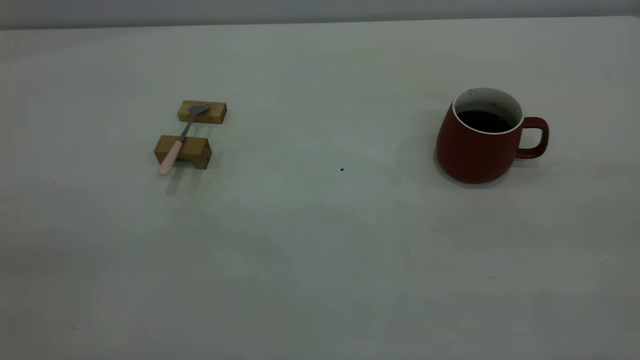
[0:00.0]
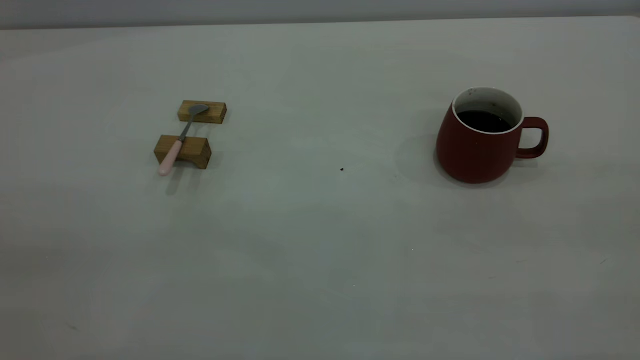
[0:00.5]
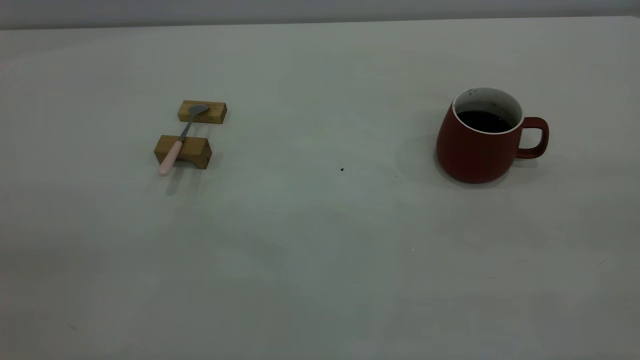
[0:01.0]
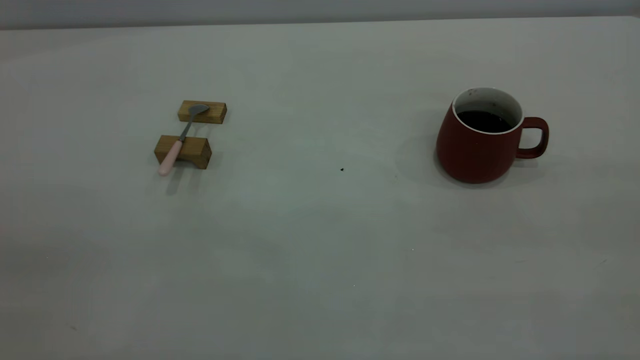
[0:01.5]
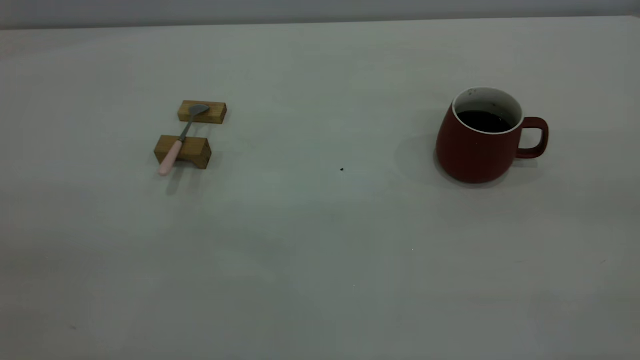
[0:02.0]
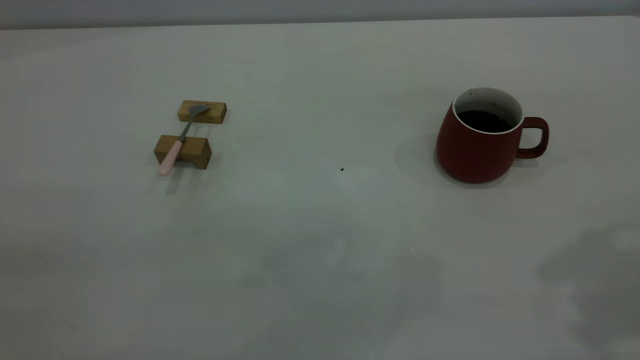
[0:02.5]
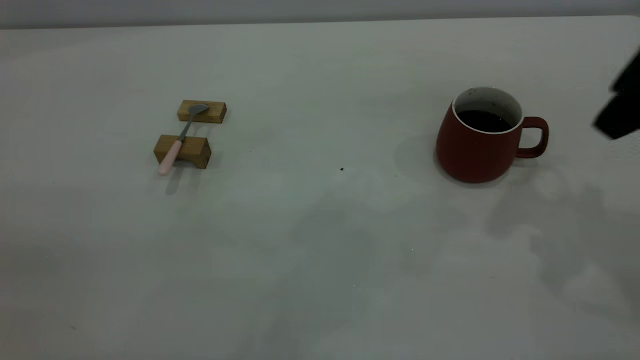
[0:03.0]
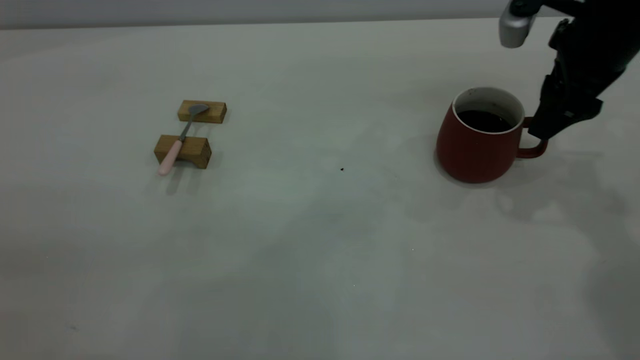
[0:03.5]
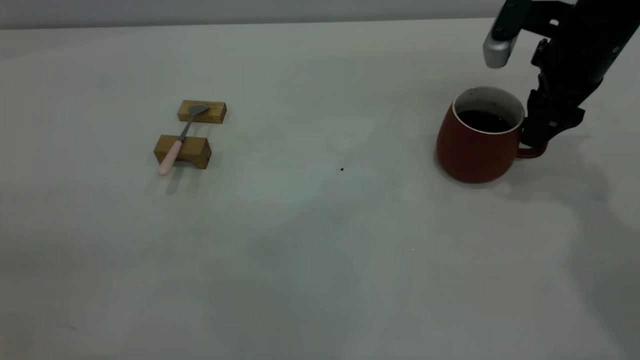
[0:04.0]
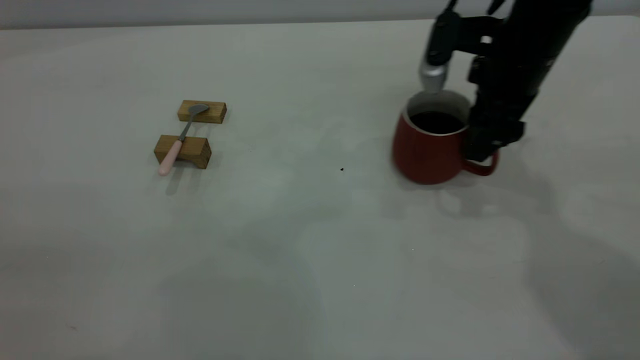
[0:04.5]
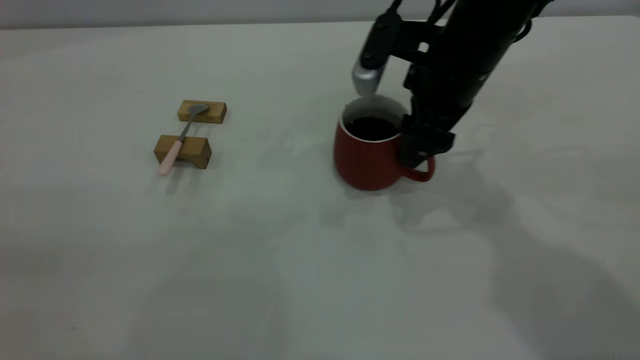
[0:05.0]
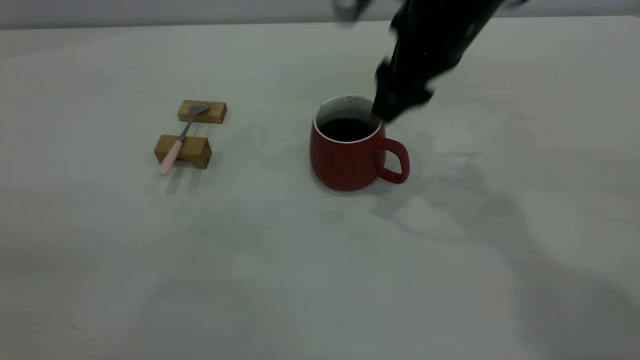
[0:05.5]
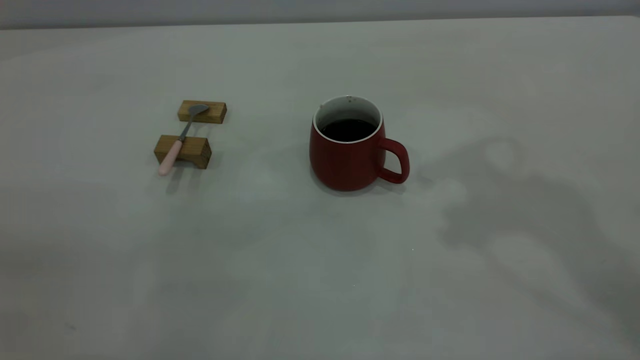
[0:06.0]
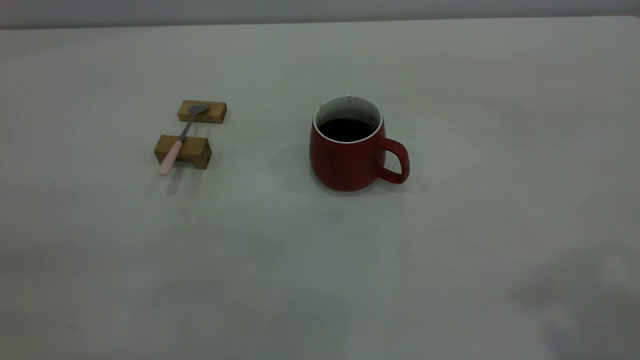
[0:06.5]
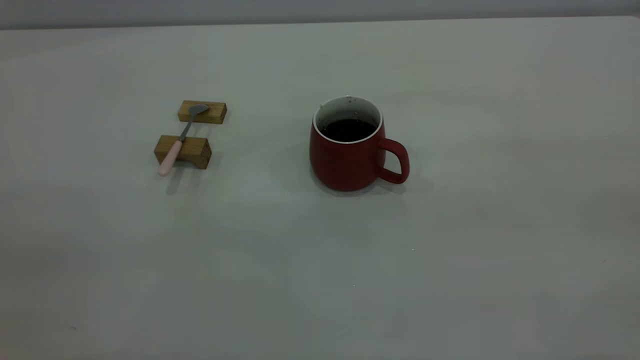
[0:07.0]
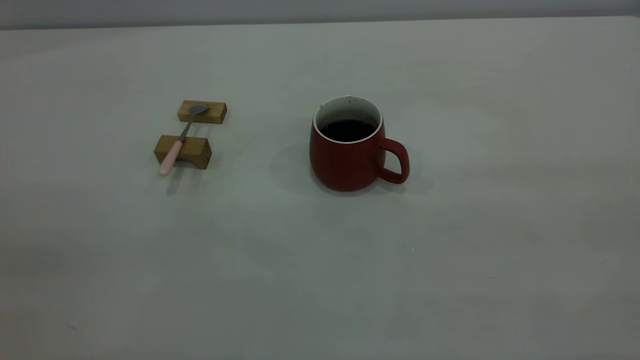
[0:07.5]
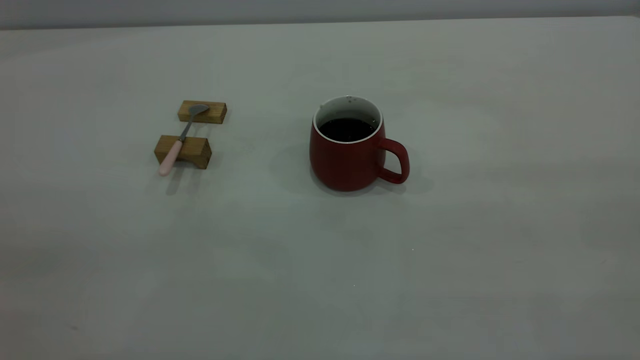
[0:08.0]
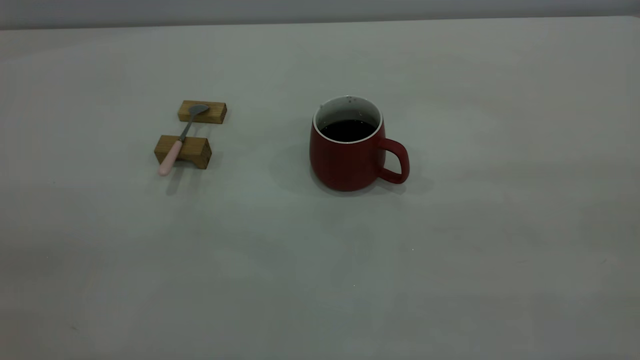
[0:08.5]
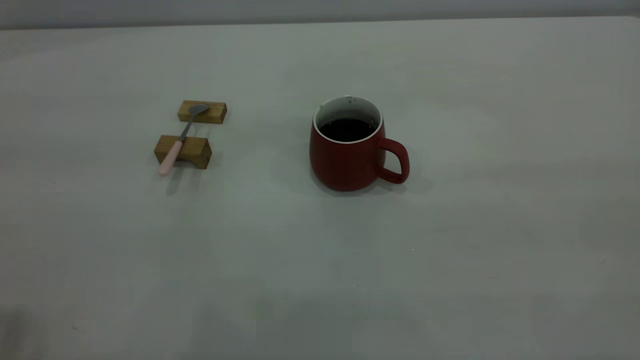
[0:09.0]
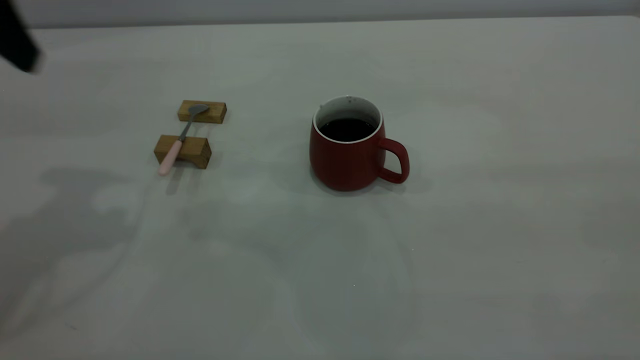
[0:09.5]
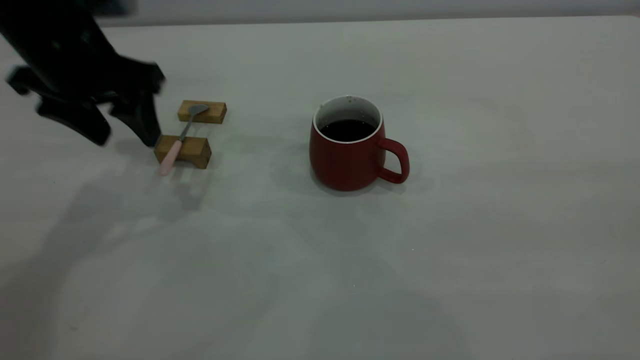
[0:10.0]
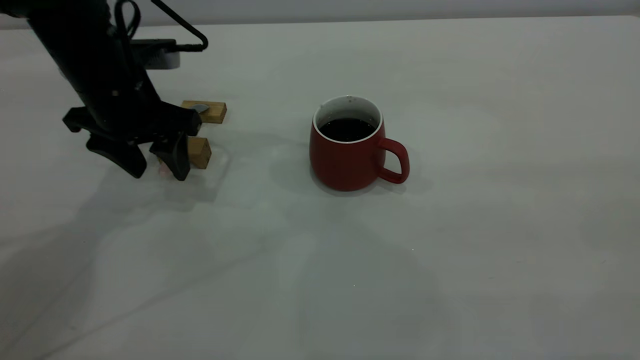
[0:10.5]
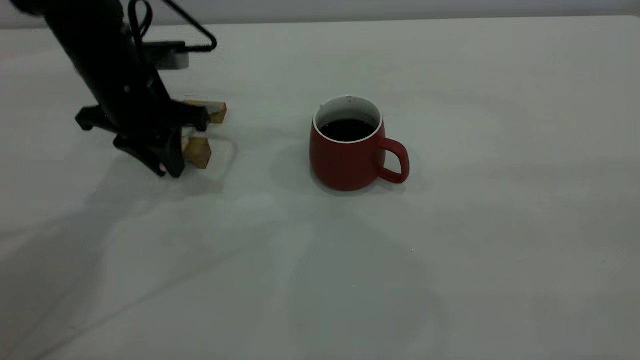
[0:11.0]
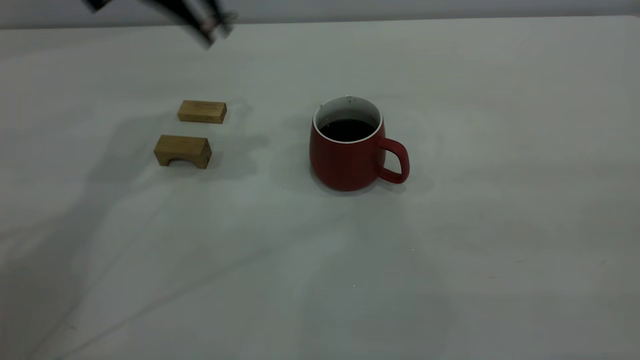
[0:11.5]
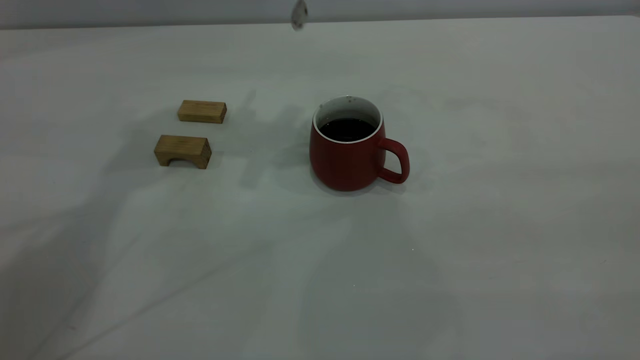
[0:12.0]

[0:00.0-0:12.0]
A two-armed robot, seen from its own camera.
Step, 0:00.0 to 0:05.5: Move the cup with coffee to the center of view.
Step, 0:06.0 to 0:11.0: Pick up the spoon.
0:02.0 to 0:04.0: The right gripper heads forward and downward, covering some 40 cm.
0:04.0 to 0:06.0: The right gripper moves upward and backward, approximately 25 cm.
0:08.0 to 0:10.0: The left gripper shifts approximately 40 cm forward and downward, and opens.
0:10.0 to 0:12.0: The left gripper shifts approximately 15 cm to the right, upward and forward, and closes up.

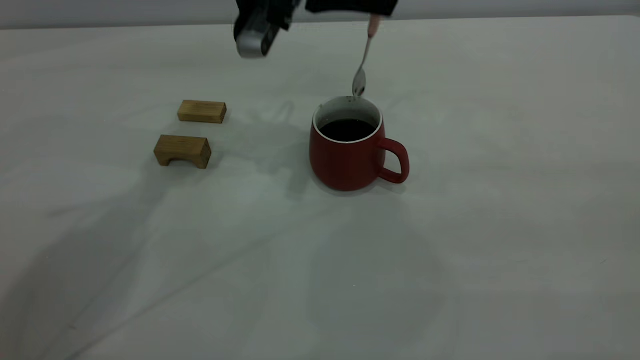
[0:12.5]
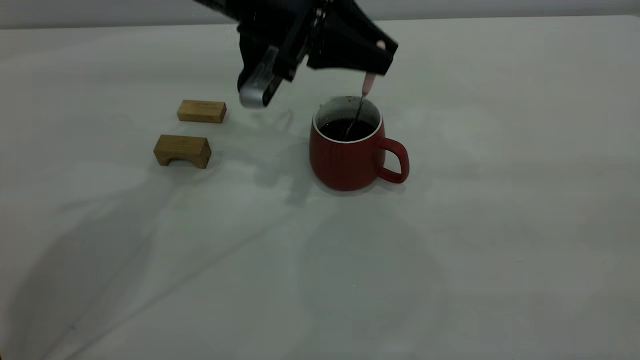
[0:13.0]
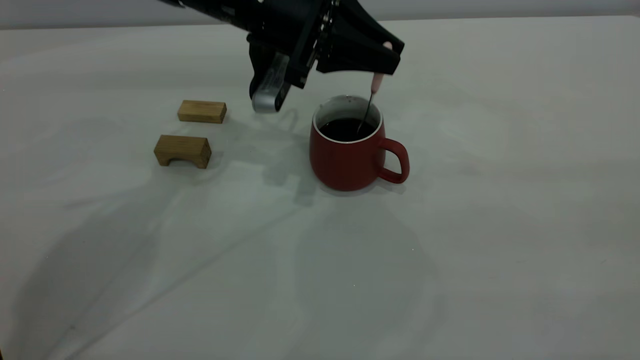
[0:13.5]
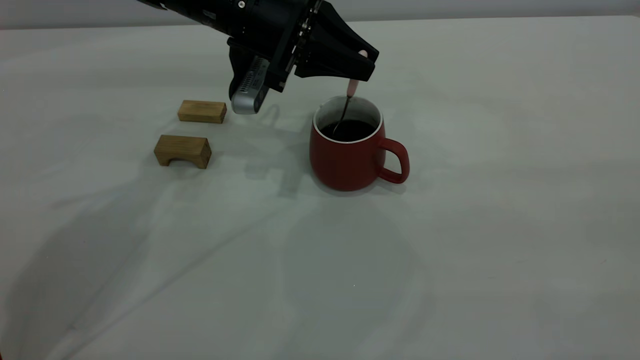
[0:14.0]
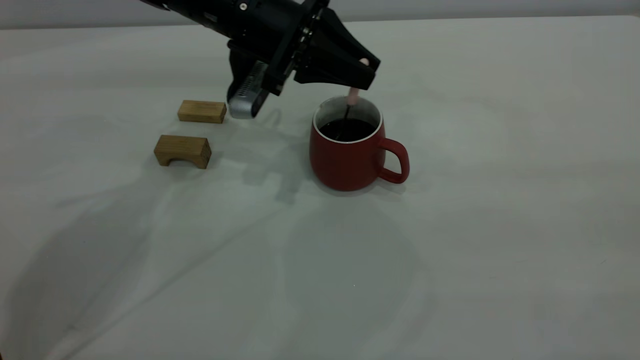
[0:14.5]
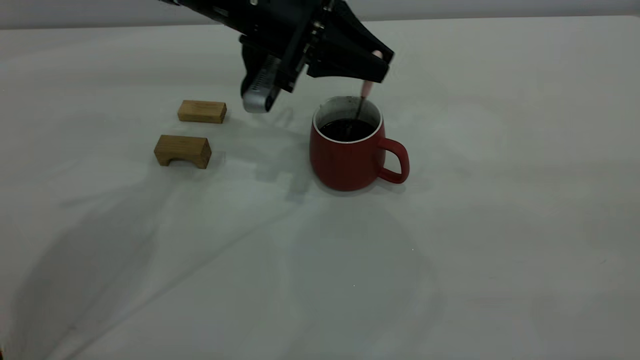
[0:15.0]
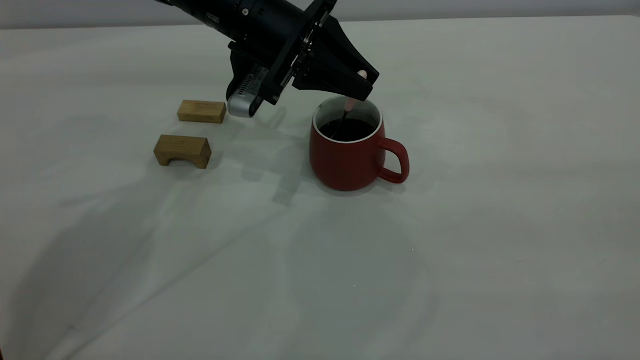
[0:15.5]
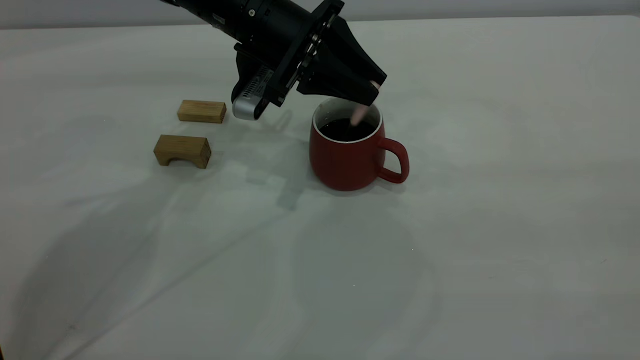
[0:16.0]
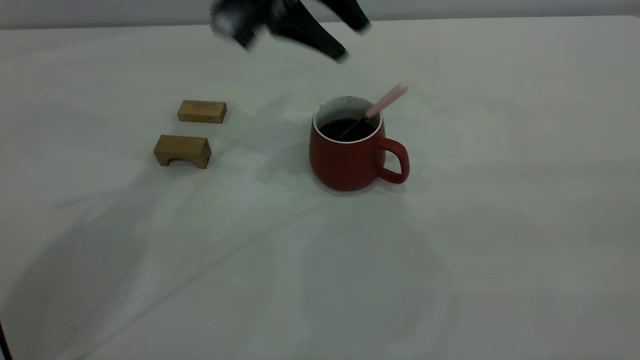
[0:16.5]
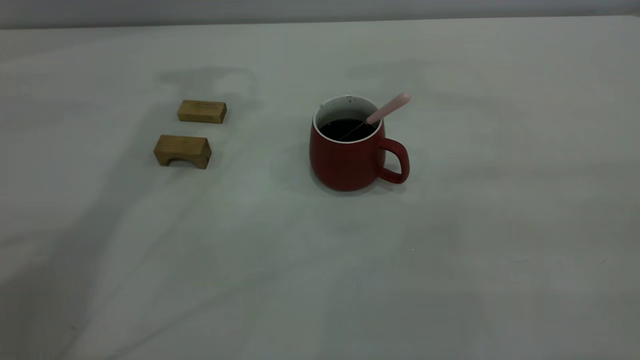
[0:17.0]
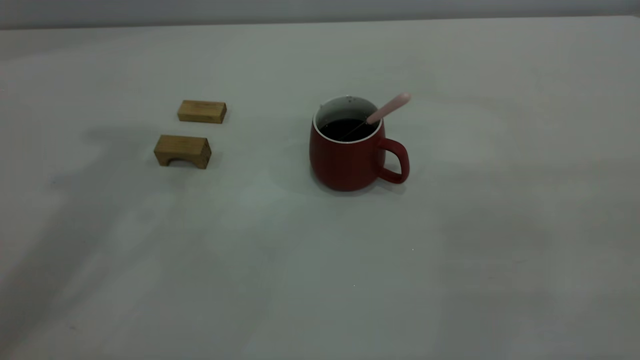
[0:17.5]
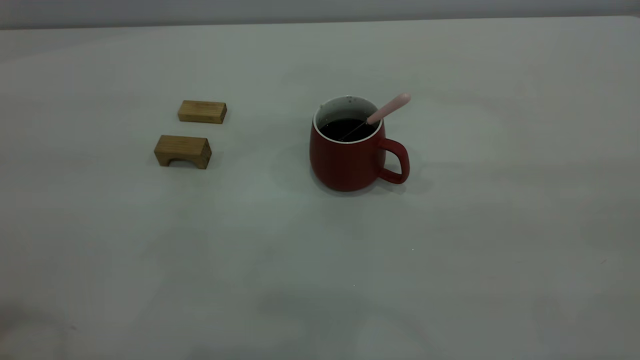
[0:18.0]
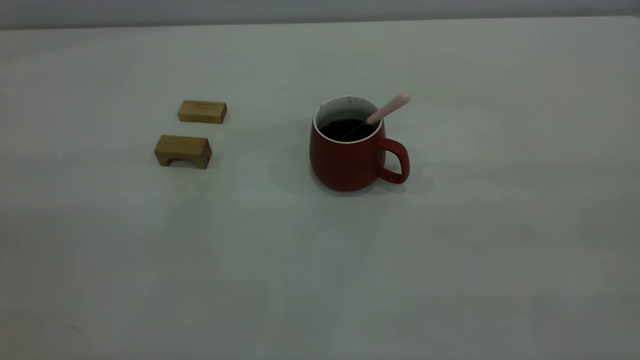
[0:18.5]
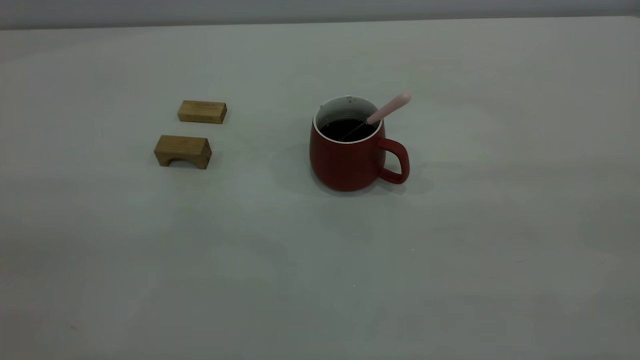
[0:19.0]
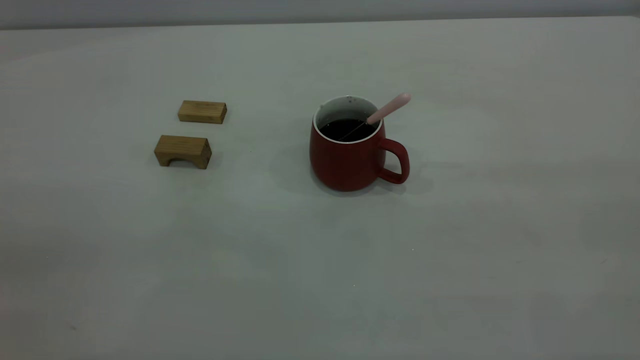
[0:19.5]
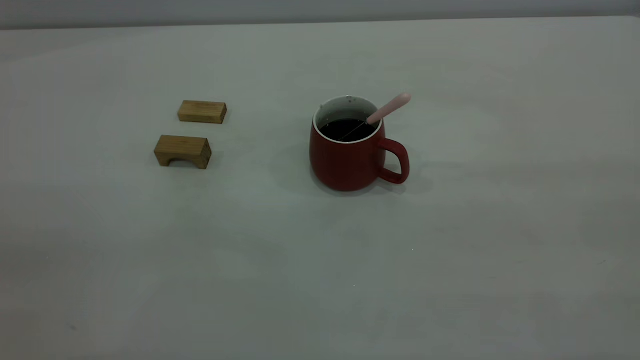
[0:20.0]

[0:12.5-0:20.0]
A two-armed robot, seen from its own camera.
Step, 0:12.5 to 0:16.0: Stir the coffee in the cup.
0:12.5 to 0:14.5: The left gripper shifts roughly 5 cm downward.
0:14.5 to 0:16.5: The left gripper travels upward by some 10 cm, and opens up.
0:16.5 to 0:18.0: The left gripper travels backward, to the left and upward by about 40 cm.
